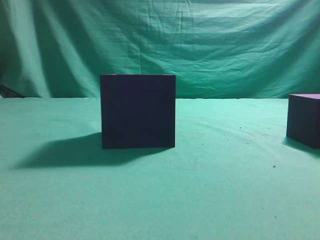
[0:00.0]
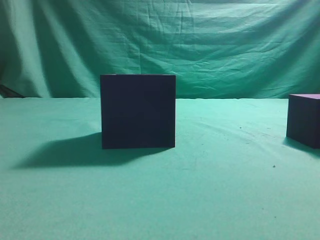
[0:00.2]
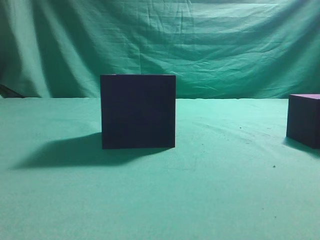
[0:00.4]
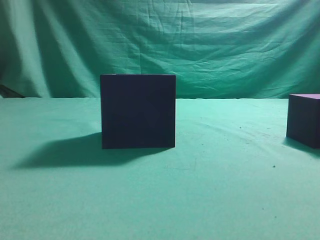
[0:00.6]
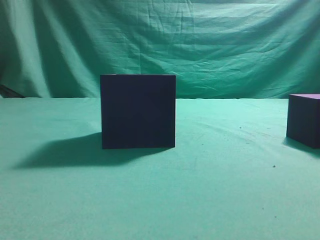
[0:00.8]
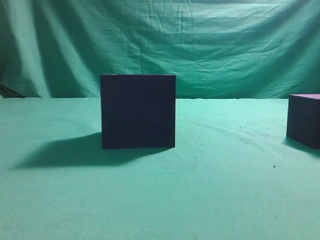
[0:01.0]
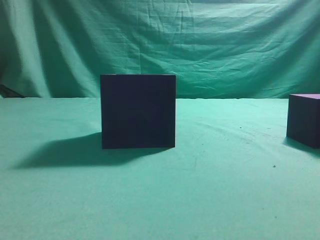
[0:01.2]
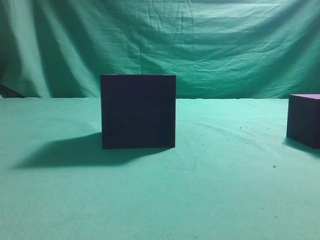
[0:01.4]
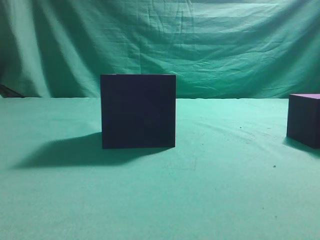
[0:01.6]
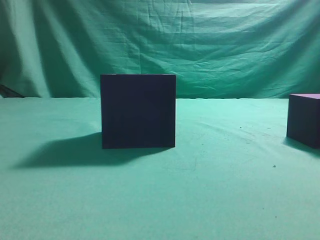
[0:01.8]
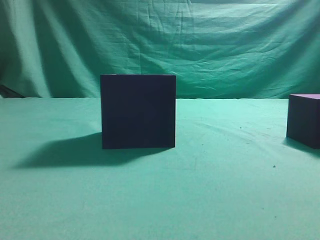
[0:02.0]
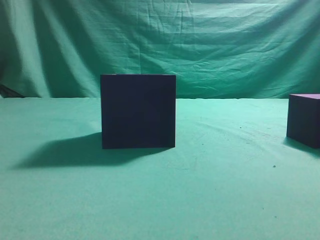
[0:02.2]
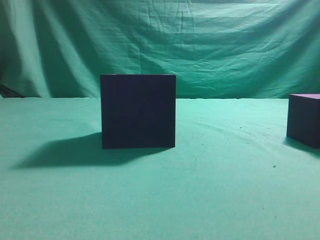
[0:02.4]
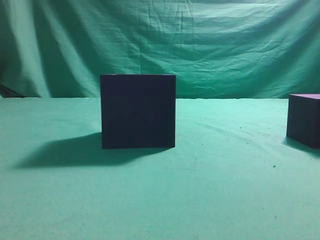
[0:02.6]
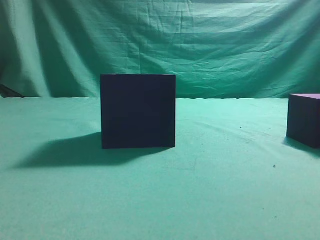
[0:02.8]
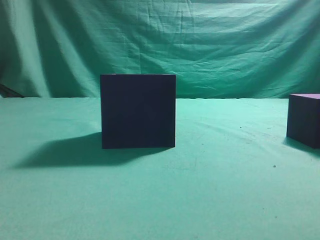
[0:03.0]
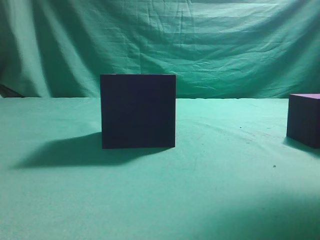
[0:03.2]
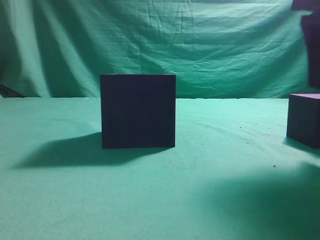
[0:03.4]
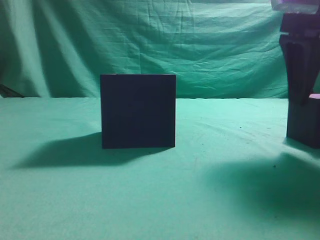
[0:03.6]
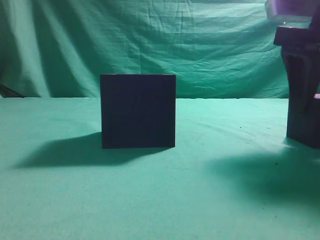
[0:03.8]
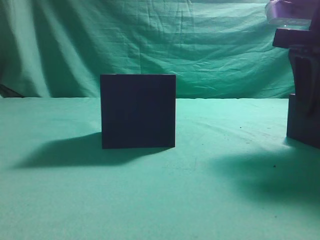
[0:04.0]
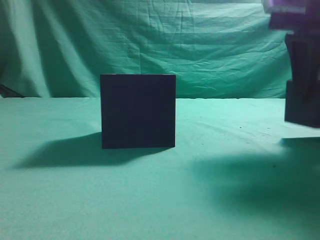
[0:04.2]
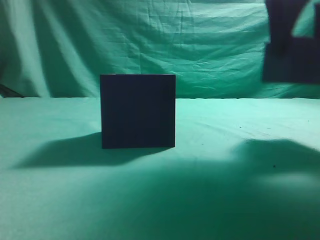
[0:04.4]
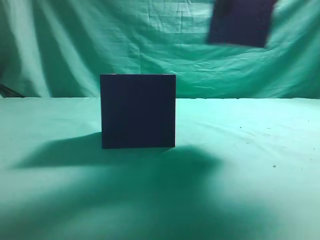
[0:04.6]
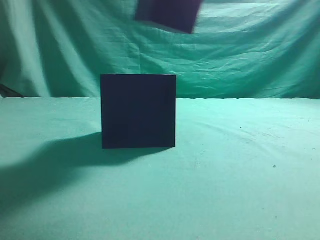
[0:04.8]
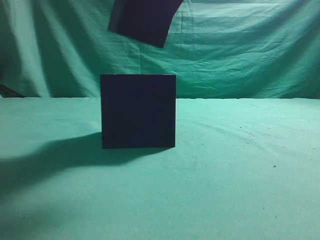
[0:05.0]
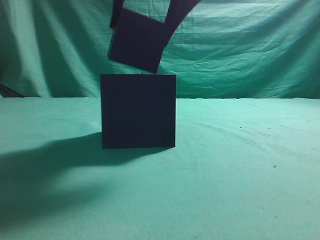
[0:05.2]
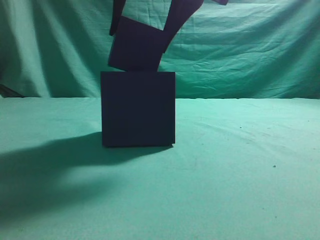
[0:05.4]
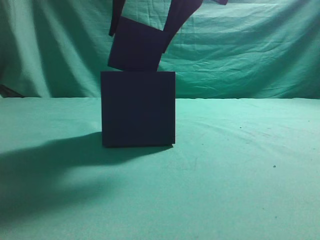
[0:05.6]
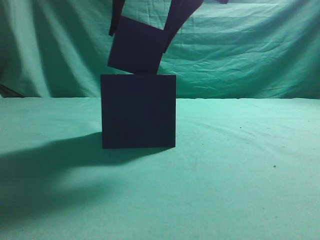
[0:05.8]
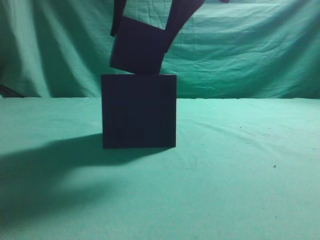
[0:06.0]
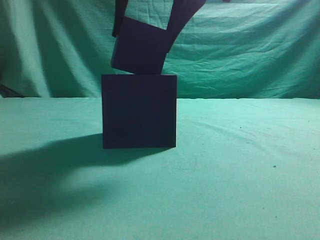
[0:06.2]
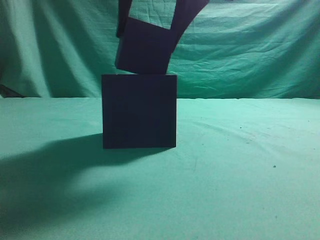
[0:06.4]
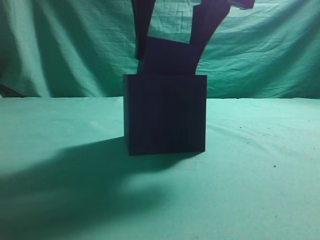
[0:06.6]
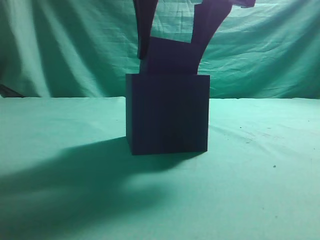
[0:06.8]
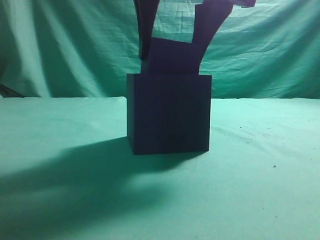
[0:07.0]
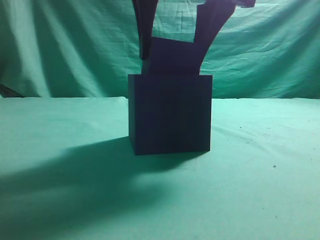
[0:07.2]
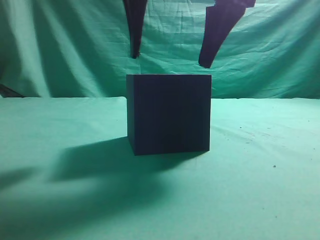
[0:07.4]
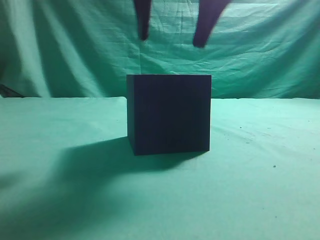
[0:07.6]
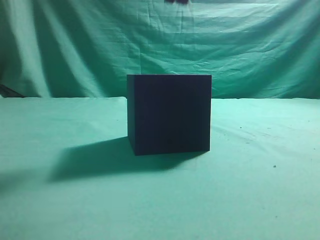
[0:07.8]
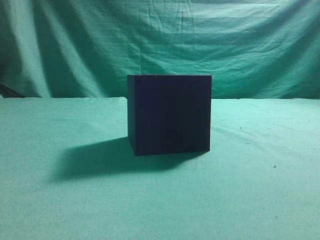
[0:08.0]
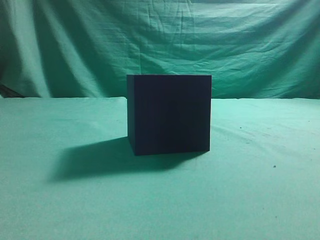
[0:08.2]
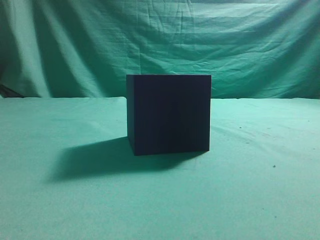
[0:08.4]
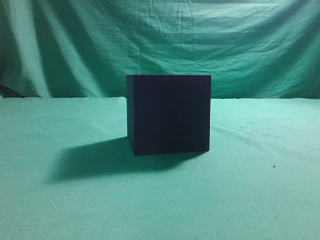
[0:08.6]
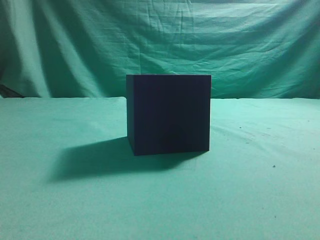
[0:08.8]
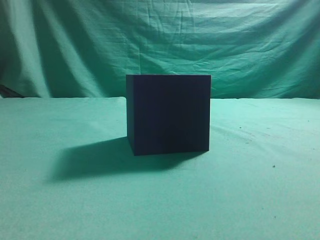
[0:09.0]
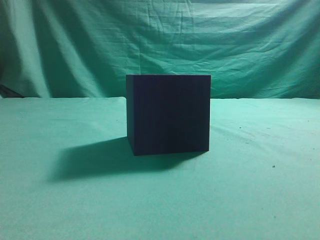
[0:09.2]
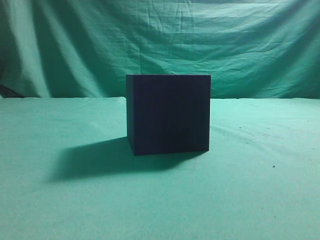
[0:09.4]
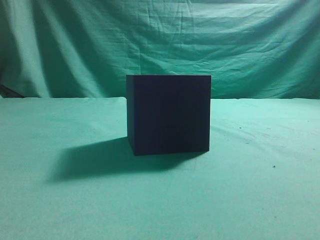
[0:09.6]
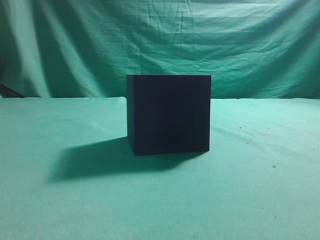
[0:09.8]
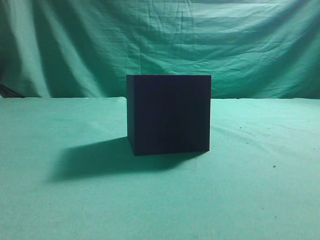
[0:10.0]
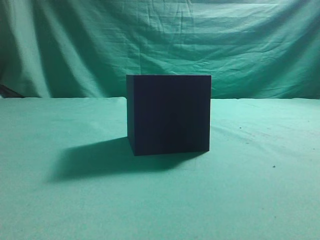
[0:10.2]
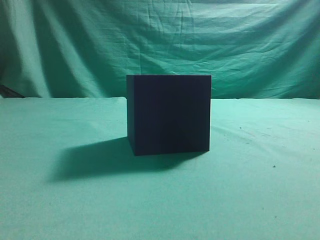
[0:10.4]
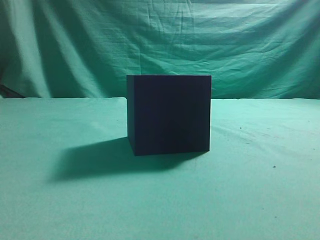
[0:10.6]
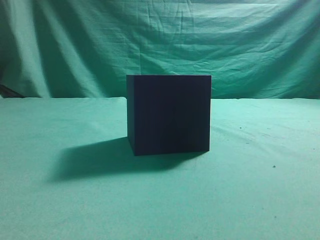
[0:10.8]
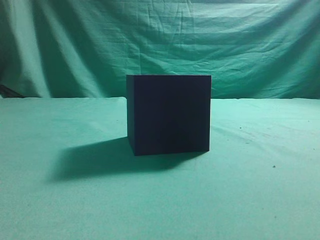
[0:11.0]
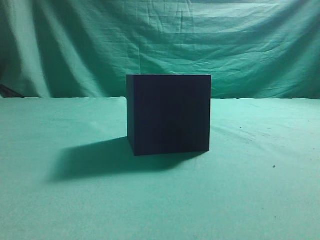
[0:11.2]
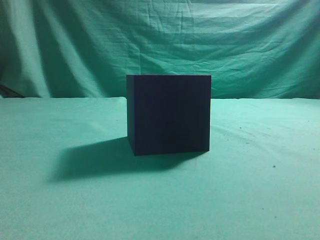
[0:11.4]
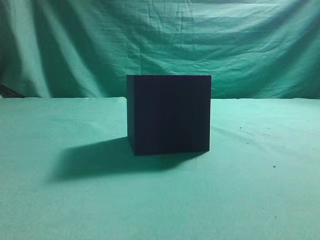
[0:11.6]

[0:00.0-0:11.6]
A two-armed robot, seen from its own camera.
Task of the whole recording: pick up the cube block and place it into the cube groove.
Step, 0:00.0 to 0:04.2: Grasp the cube.
Step, 0:04.6 to 0:07.4: Place cube into the cube-shaped recess.
0:02.8 to 0:04.4: The right gripper goes roughly 15 cm forward and to the left, and opens its fingers.
0:04.4 to 0:05.8: The right gripper goes roughly 15 cm to the left.
0:07.2 to 0:08.8: The right gripper travels to the right, backward and upward by some 30 cm, and closes.
